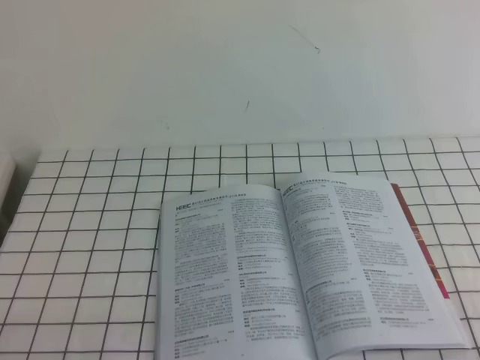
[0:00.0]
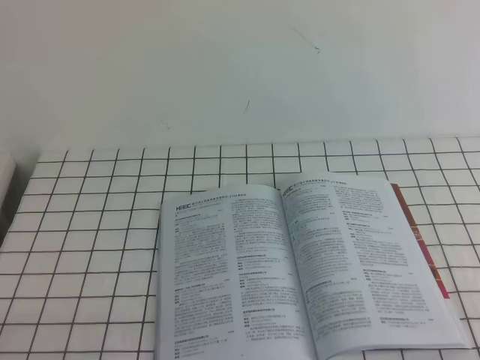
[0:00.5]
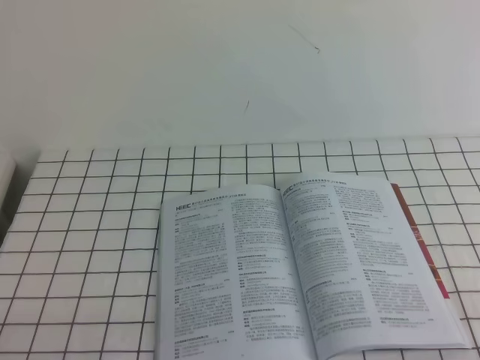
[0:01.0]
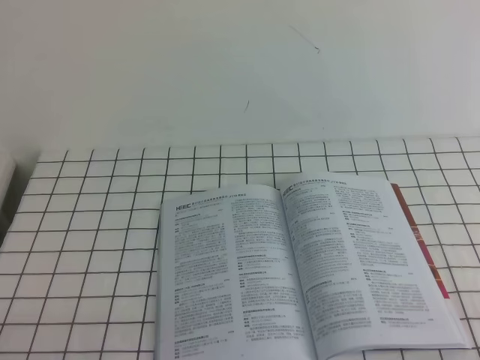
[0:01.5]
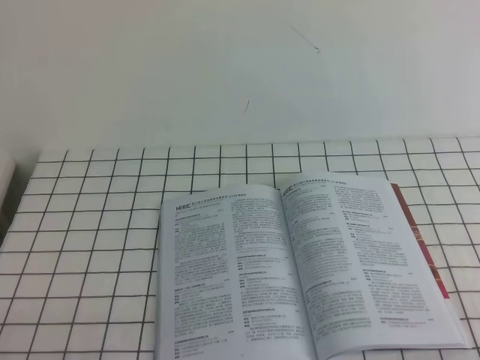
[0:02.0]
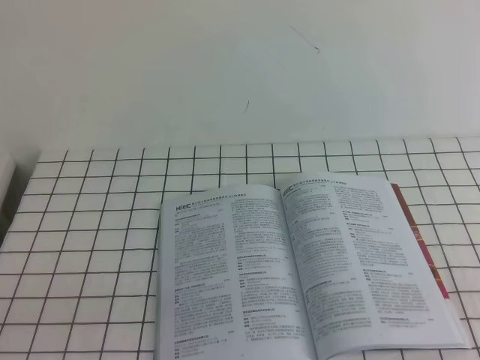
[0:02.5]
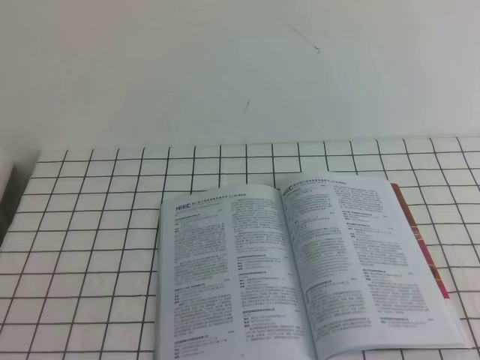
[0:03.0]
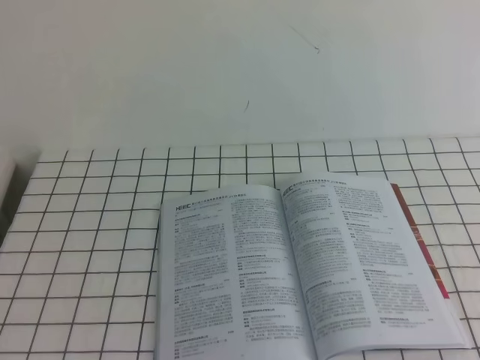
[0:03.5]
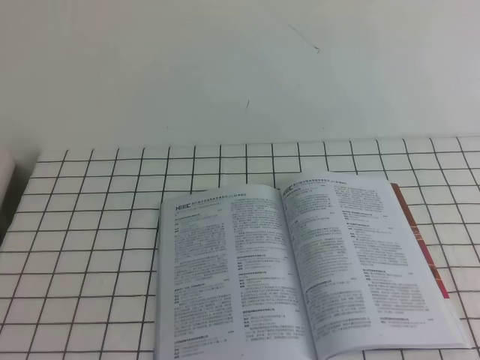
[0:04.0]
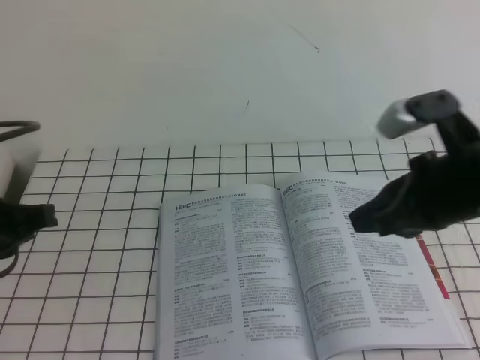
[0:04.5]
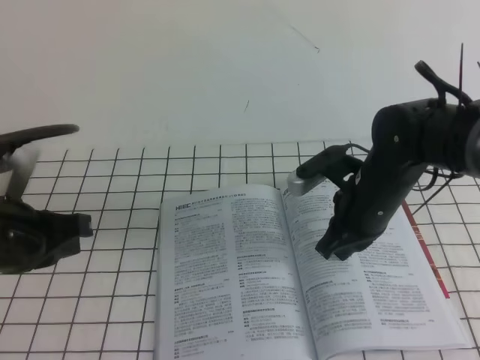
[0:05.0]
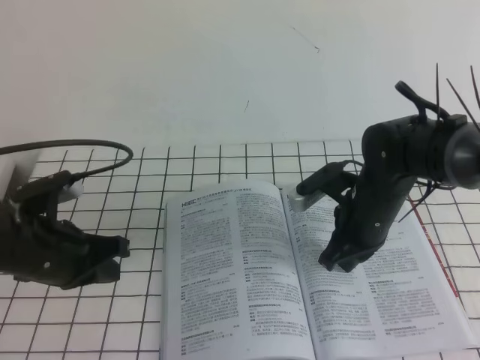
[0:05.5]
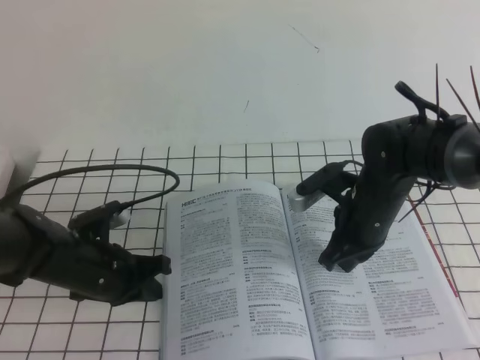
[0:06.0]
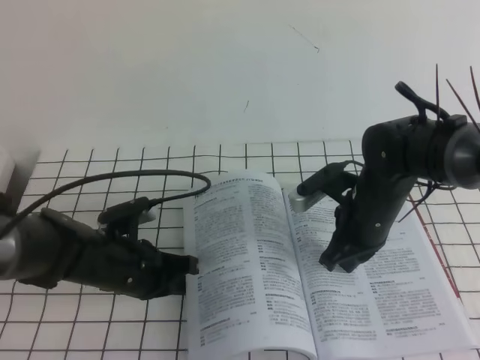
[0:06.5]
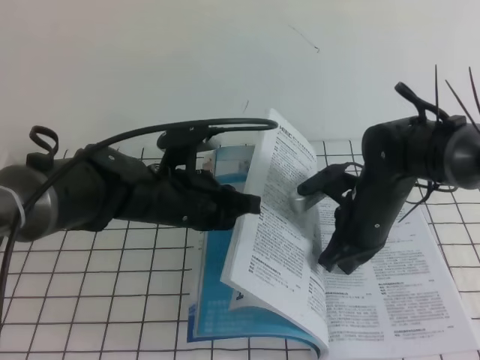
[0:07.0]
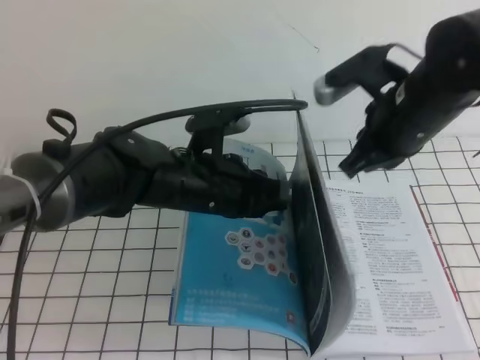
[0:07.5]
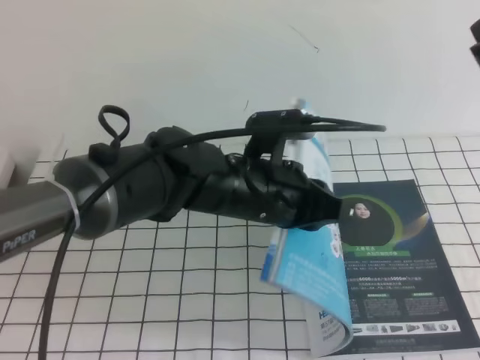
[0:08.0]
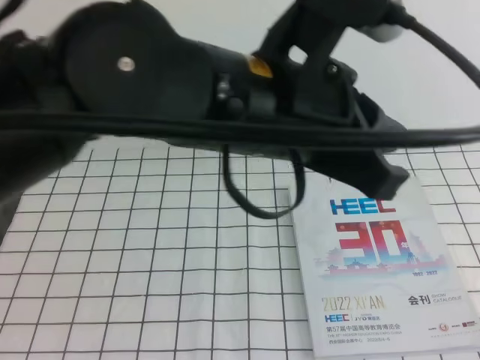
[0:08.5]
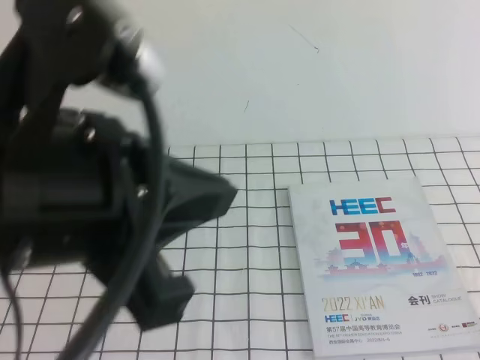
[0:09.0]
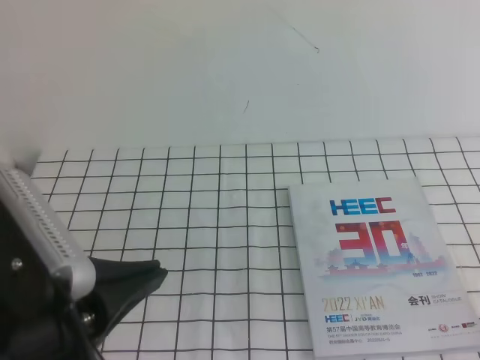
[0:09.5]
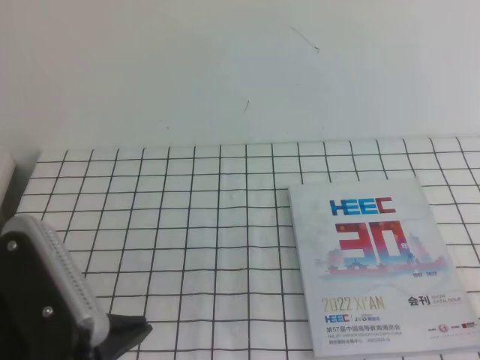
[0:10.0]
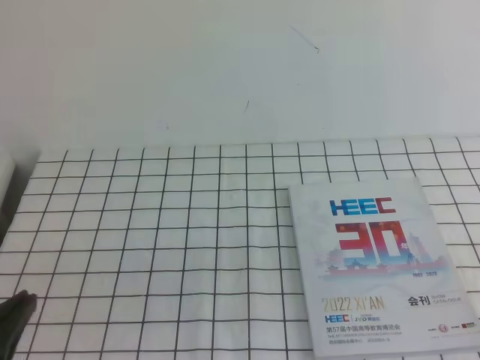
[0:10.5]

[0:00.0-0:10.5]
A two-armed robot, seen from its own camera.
Task of the whole recording: on the white tablecloth, hold the book with one hand and close it with the other.
0:00.0 to 0:02.0: The two grippers keep their place.
0:04.0 to 0:06.5: The left gripper travels downward, forward and to the right by about 30 cm. Meanwhile the right gripper travels downward, forward and to the left by roughly 35 cm.
0:06.5 to 0:08.5: The right gripper moves upward and backward, approximately 40 cm. The left gripper goes roughly 30 cm upward and to the right.
0:08.5 to 0:10.5: The right gripper moves downward and backward, some 25 cm; the left gripper moves to the left, downward and backward, some 30 cm.
